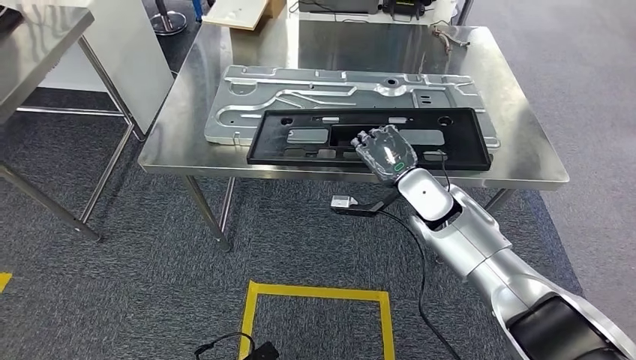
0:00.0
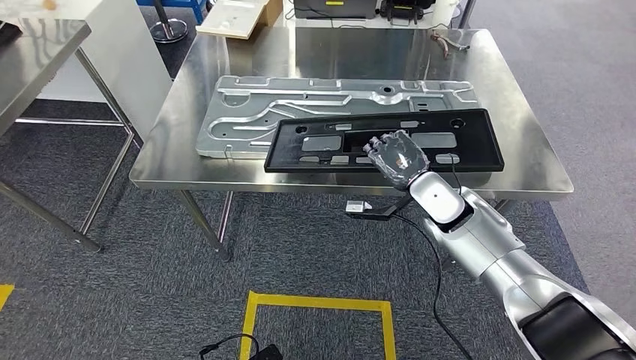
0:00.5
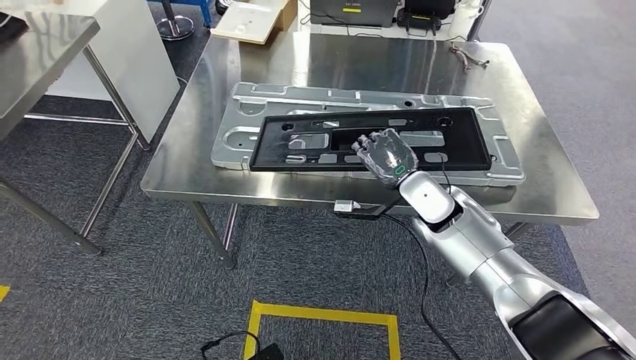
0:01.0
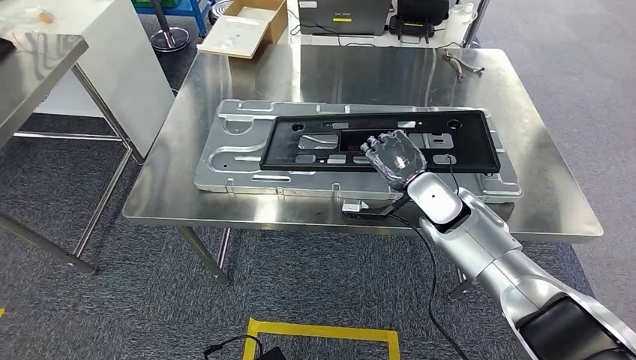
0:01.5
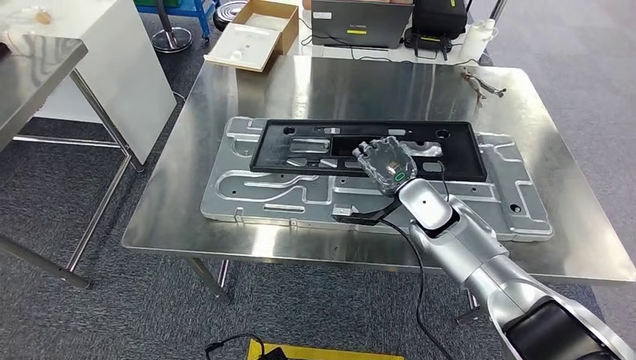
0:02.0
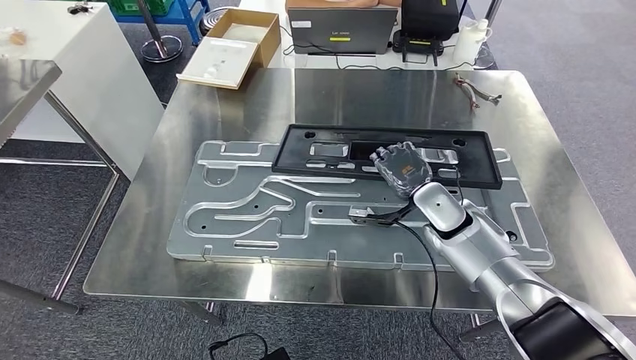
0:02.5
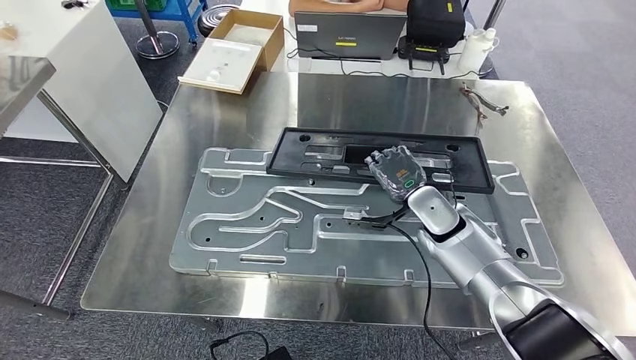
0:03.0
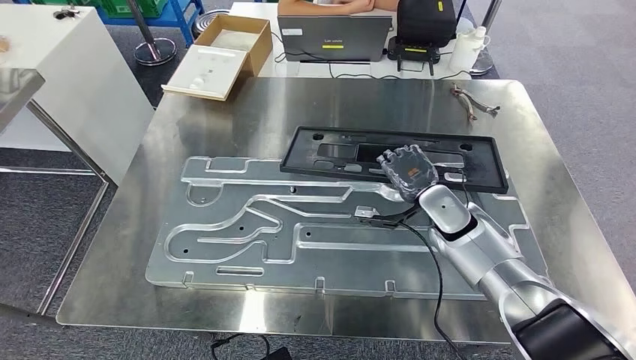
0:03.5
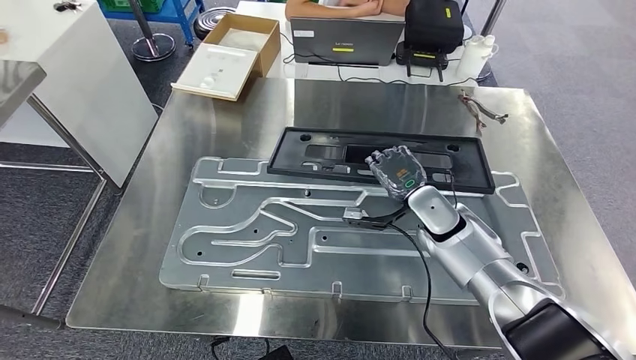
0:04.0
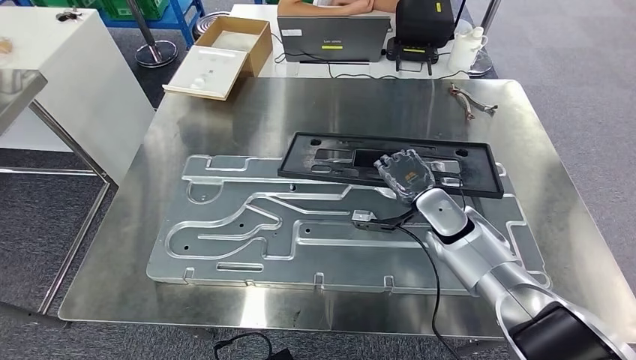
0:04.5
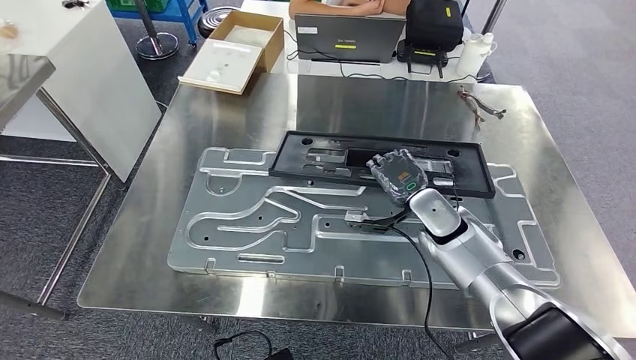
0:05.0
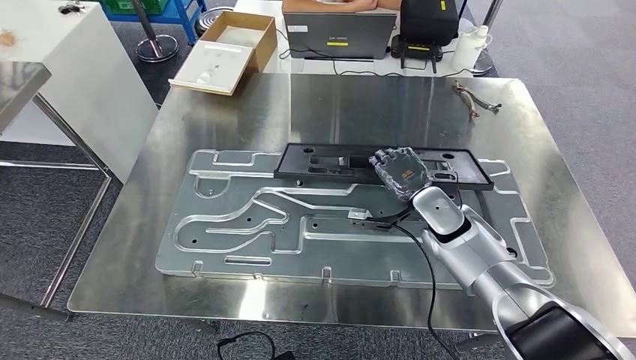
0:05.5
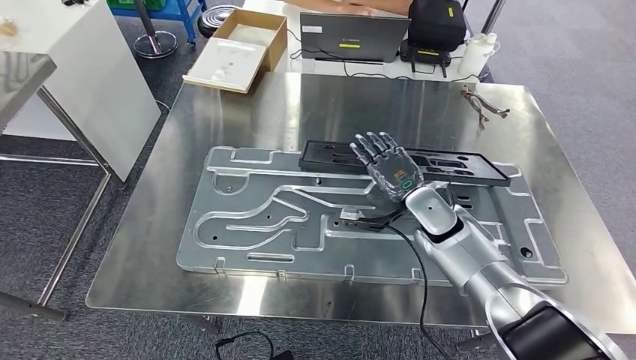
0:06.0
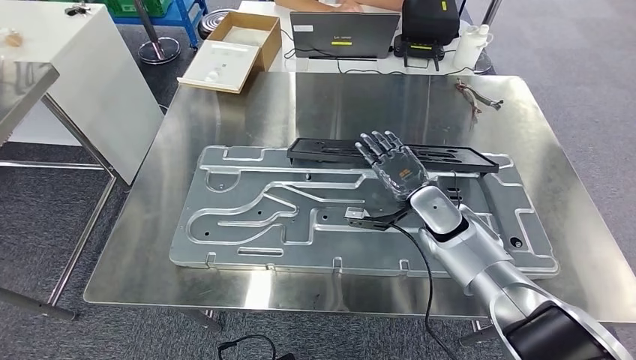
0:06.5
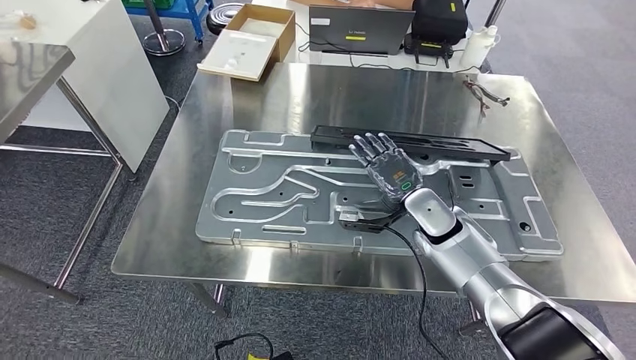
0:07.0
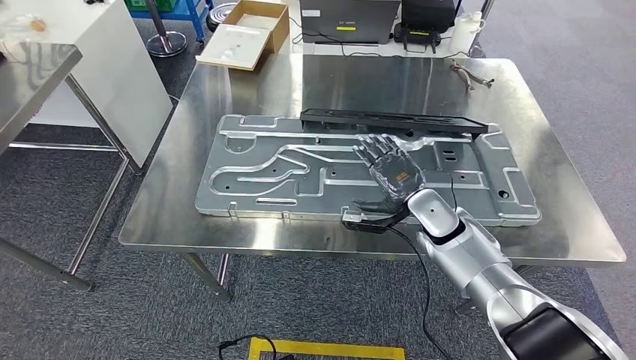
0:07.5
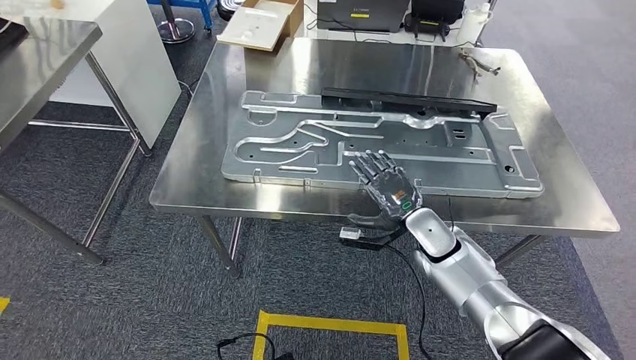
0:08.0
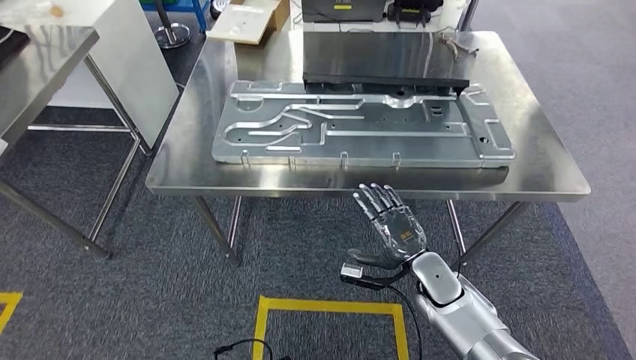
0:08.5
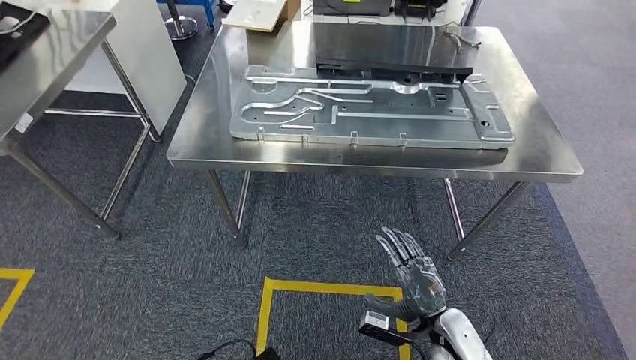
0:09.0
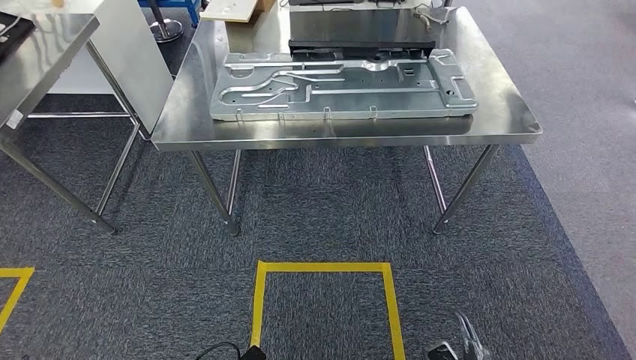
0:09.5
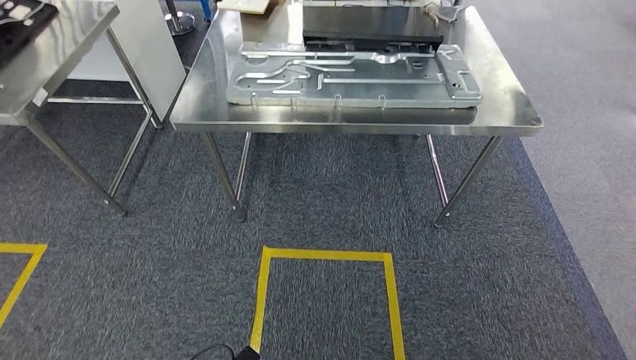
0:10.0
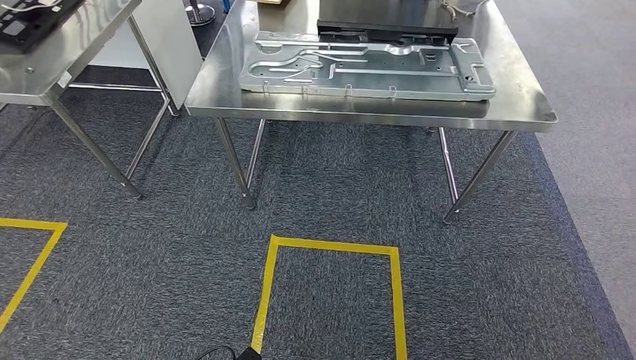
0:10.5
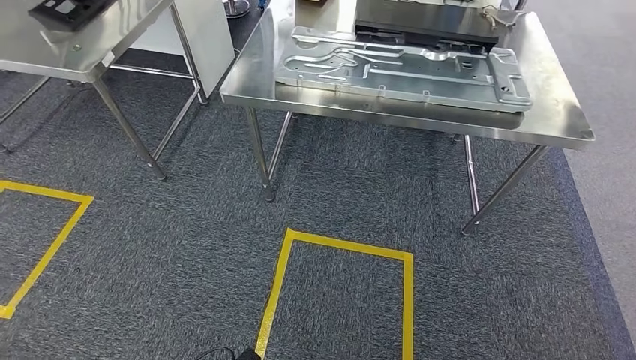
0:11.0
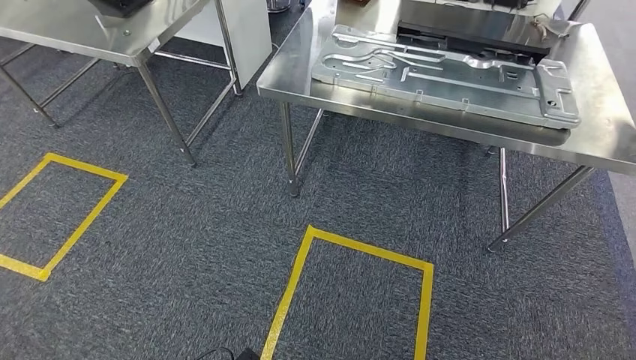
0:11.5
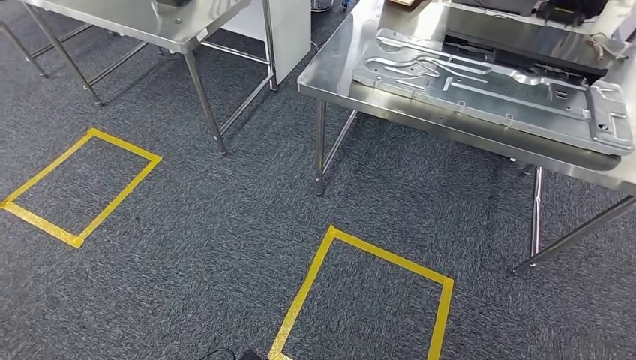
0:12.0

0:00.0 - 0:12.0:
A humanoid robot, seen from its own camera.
Step, 0:00.0 - 0:08.0: Insert the large material into the corresponding slot on the workbench.

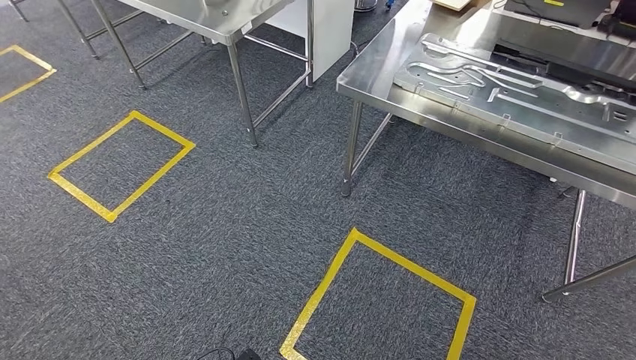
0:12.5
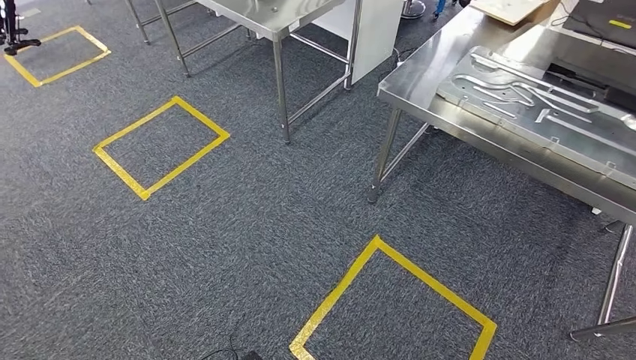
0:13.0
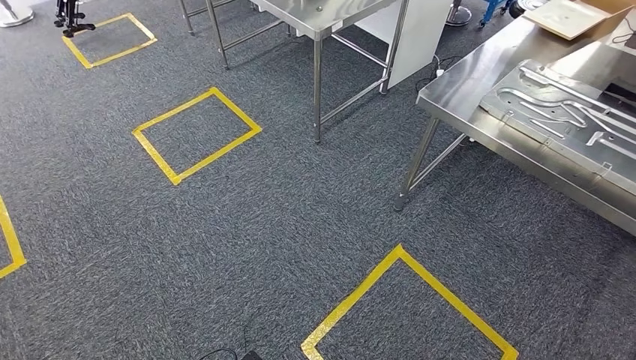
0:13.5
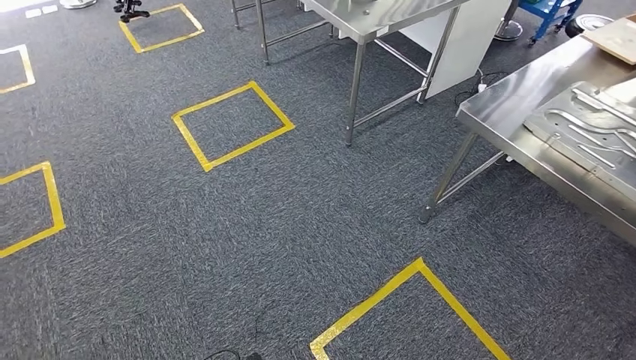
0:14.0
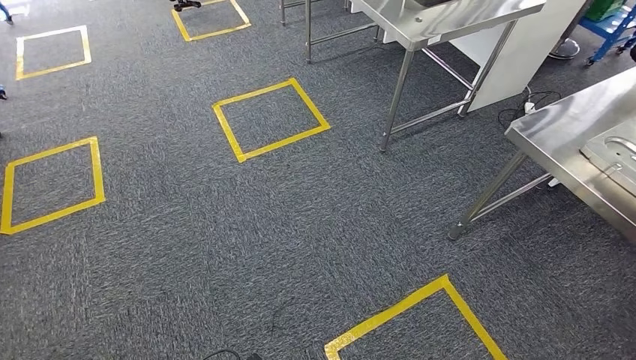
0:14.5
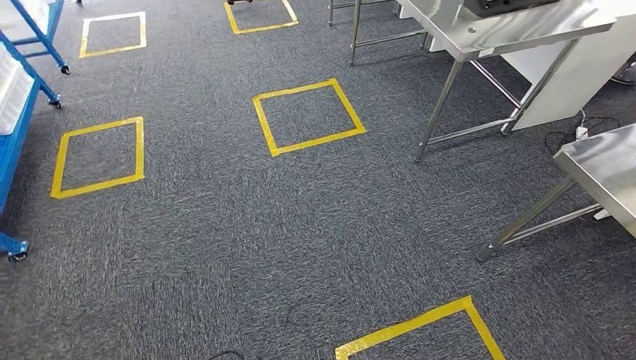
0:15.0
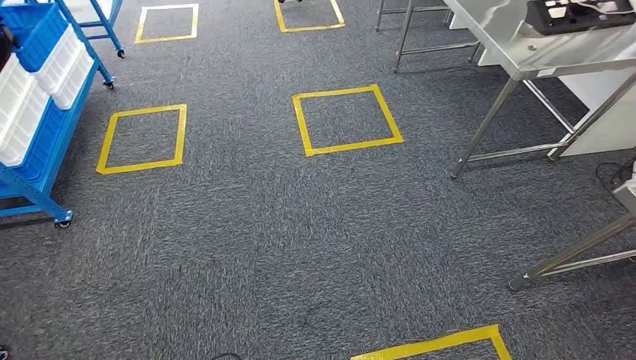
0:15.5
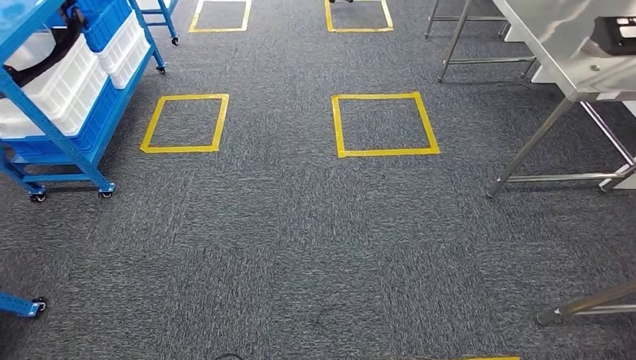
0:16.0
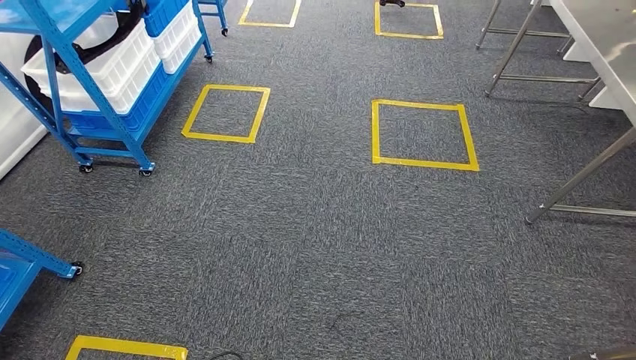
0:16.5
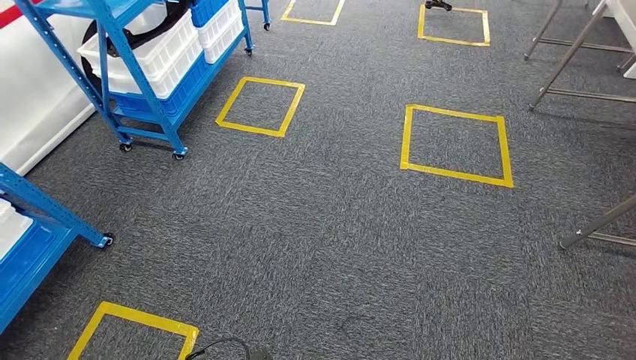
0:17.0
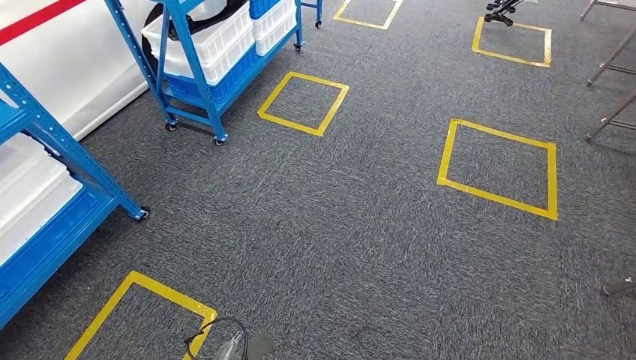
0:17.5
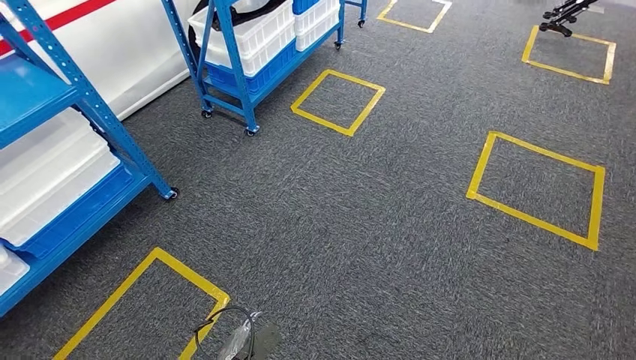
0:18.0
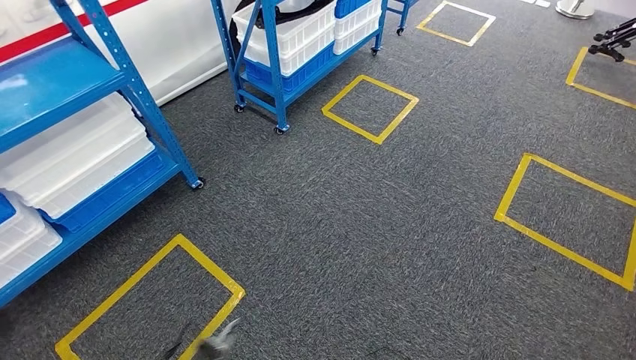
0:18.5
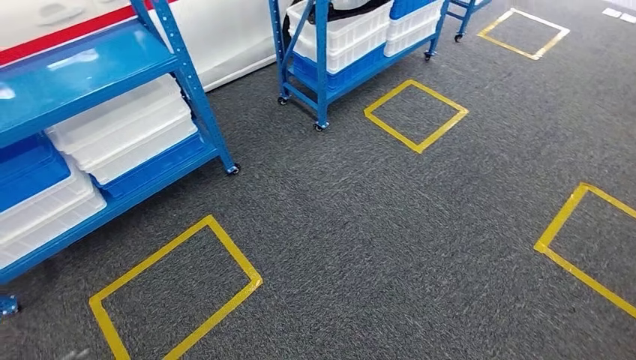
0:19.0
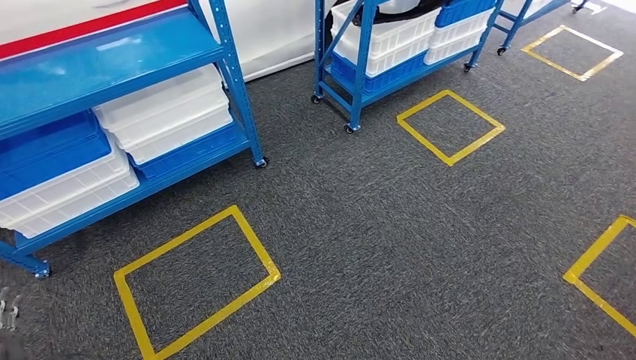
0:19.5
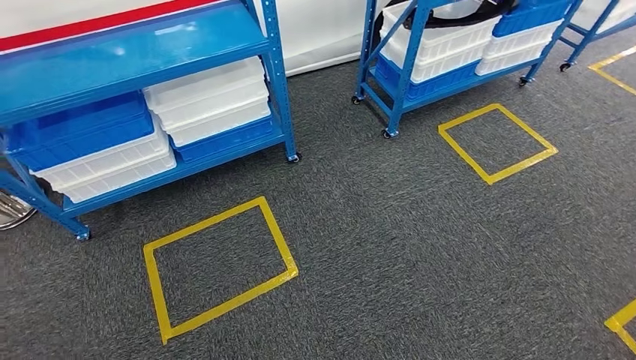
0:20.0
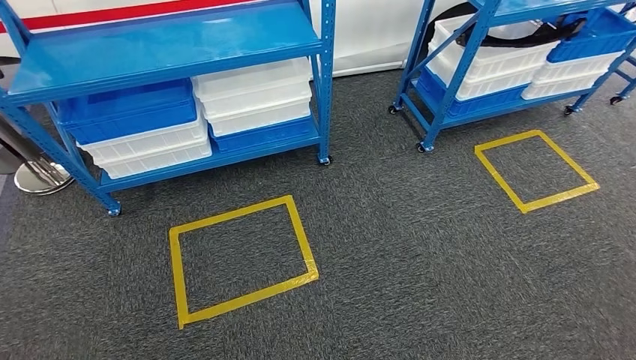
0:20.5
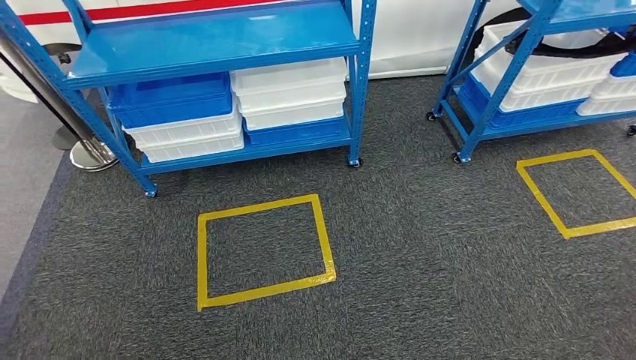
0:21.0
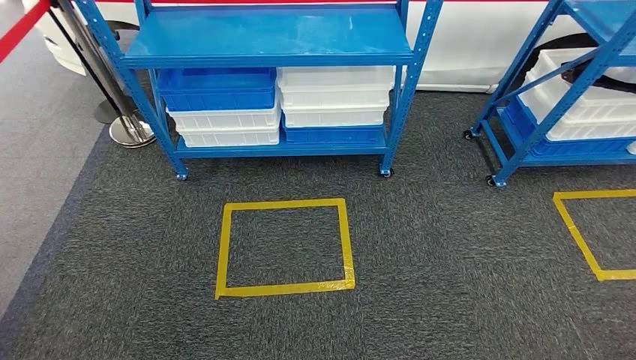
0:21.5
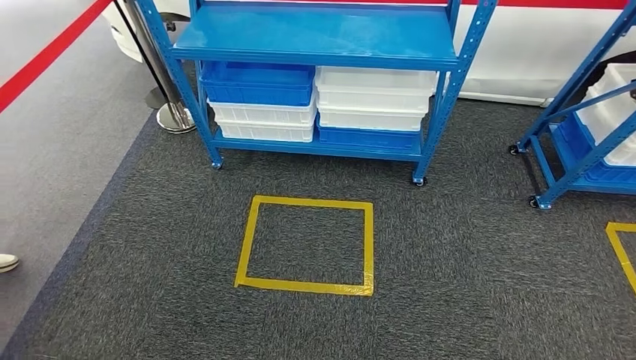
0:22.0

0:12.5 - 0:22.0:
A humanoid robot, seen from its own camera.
Step, 0:12.5 - 0:22.0: Move to the initial position of the shelf.
